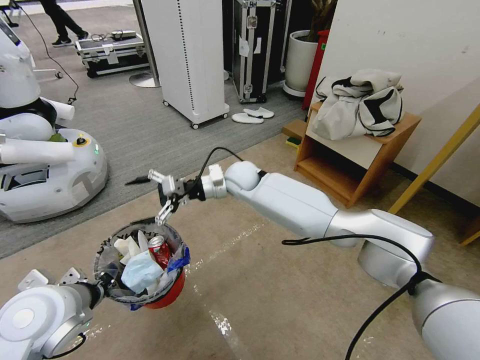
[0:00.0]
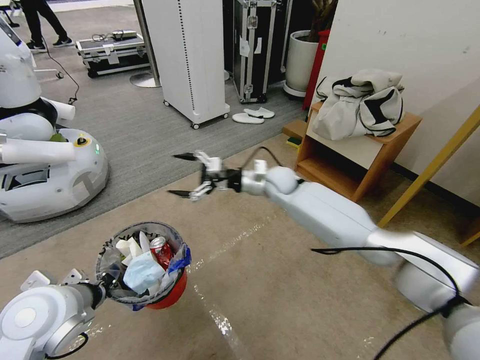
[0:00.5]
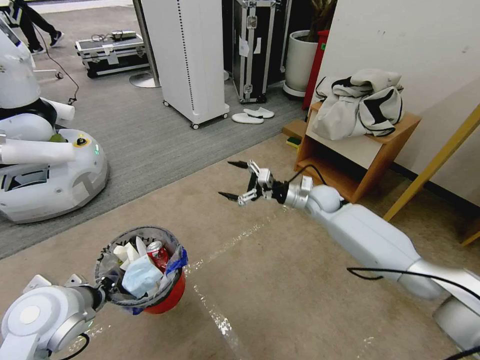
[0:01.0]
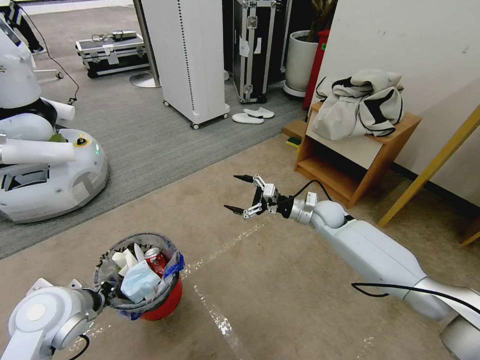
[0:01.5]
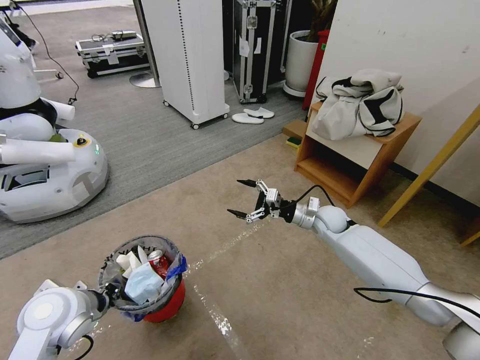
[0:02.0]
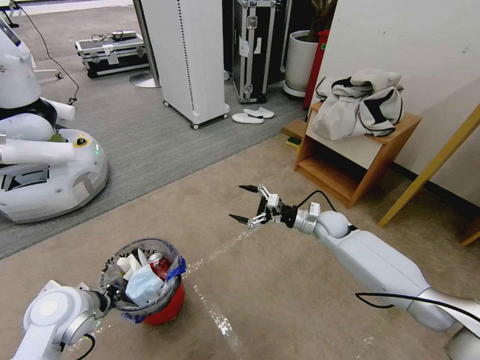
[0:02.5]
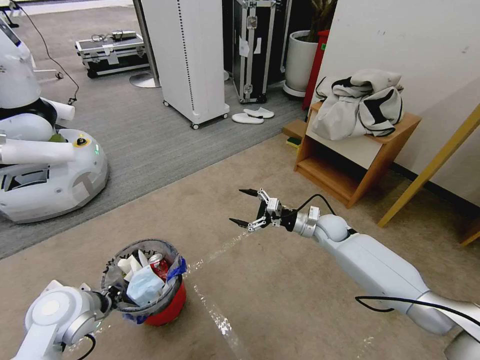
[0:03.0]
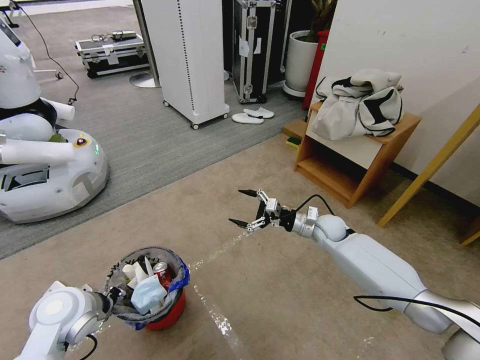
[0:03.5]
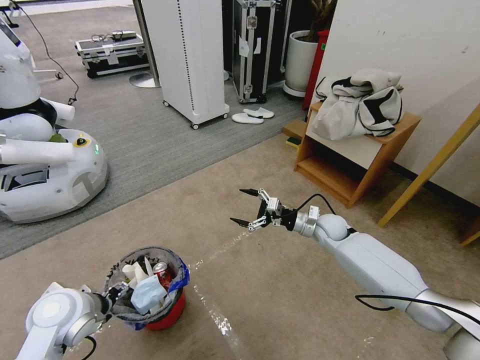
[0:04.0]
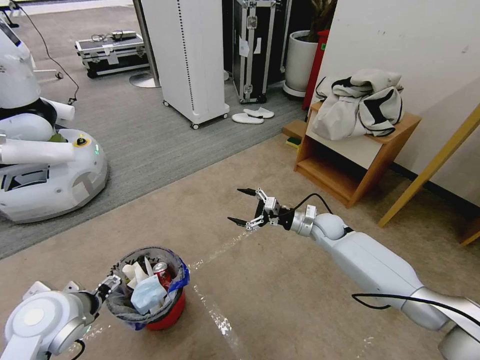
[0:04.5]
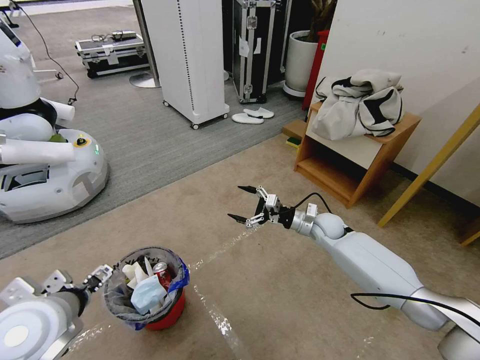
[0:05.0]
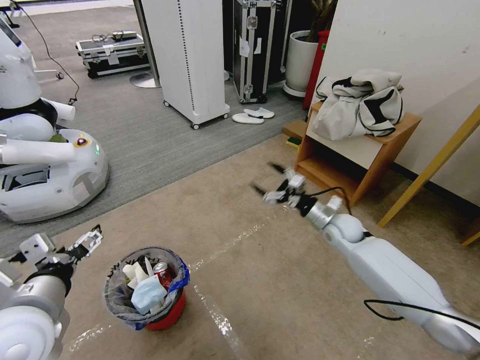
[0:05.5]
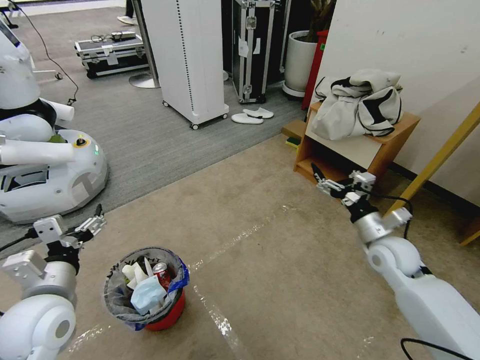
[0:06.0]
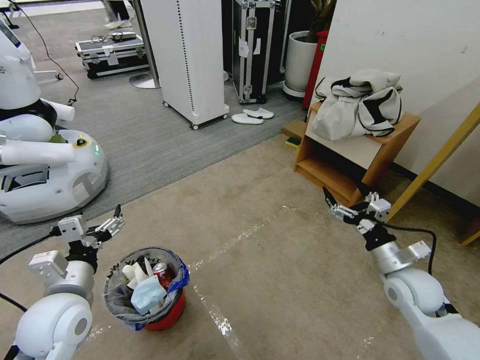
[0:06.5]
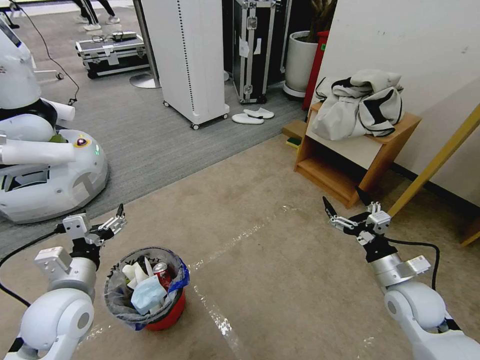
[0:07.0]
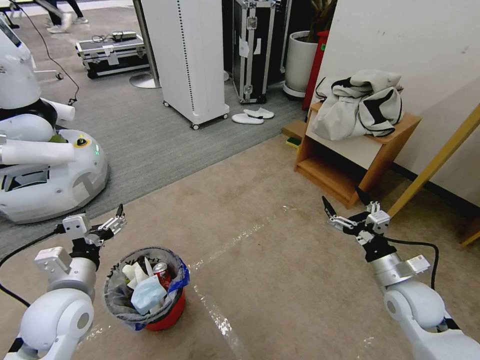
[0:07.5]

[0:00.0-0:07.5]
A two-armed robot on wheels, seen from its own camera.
Task of the whole recording: Pick up the trash bin and place the garbage on the floor into it.
0.0 to 2.0 s: The right gripper heads to the right and downward, covering roughly 30 cm. Meanwhile the left gripper travels downward by roughly 5 cm.
2.0 to 4.0 s: The left gripper opens its fingers.
4.0 to 5.5 s: The left gripper moves upward and backward, roughly 15 cm.
5.5 to 7.5 s: The left gripper moves downward and forward, about 10 cm, while the right gripper heads backward, covering about 20 cm.

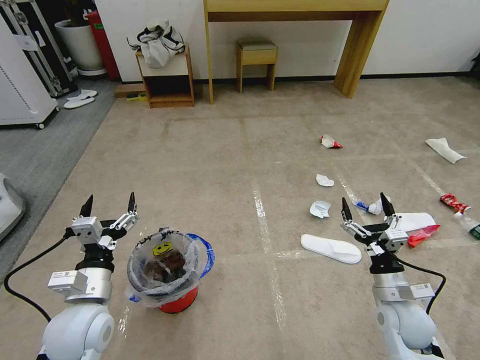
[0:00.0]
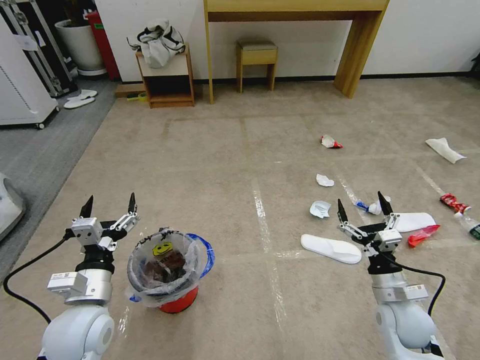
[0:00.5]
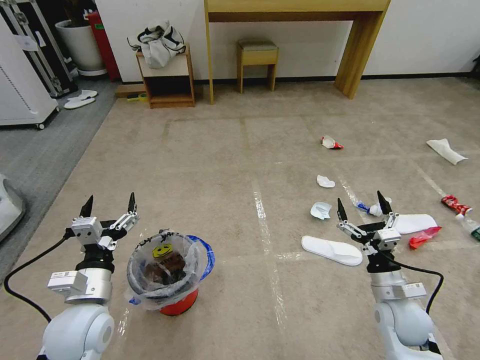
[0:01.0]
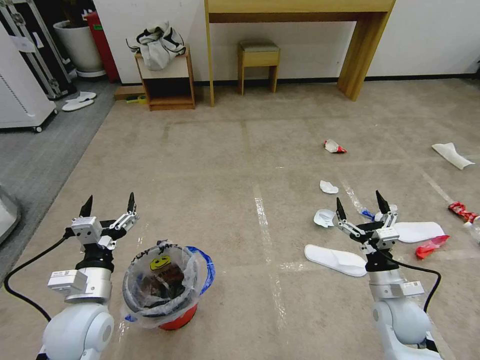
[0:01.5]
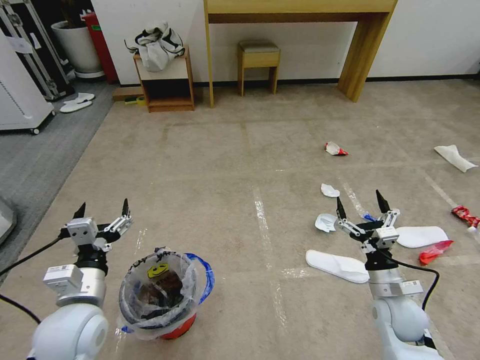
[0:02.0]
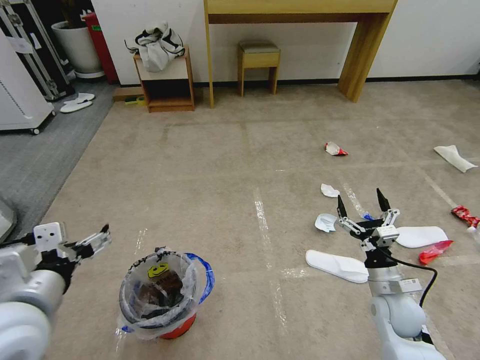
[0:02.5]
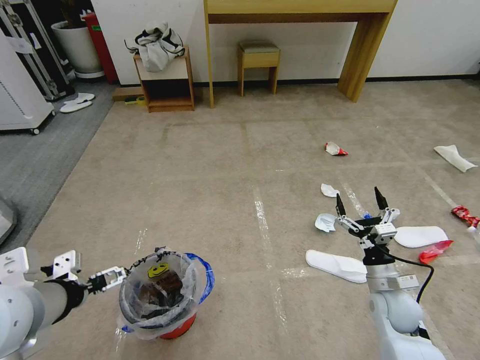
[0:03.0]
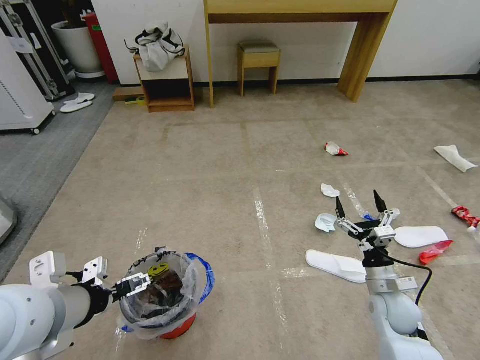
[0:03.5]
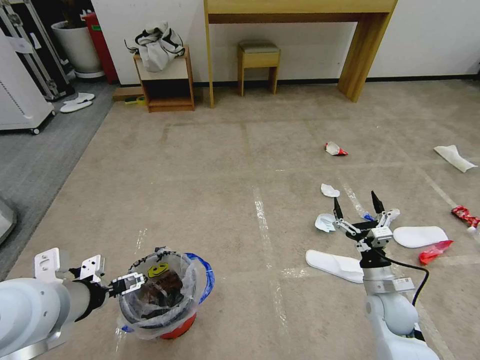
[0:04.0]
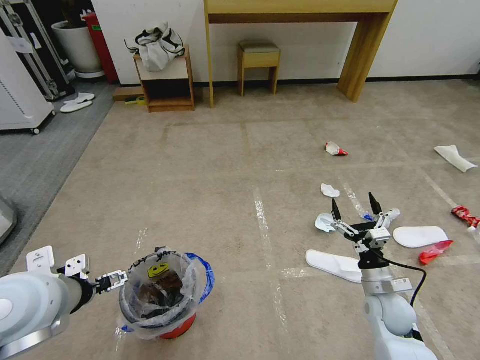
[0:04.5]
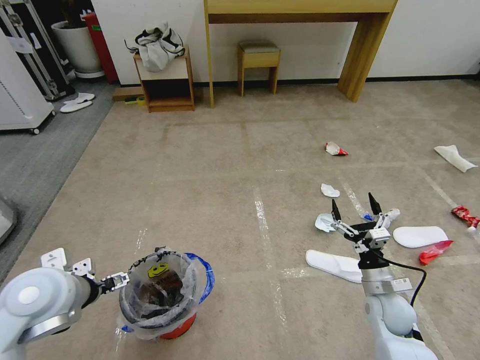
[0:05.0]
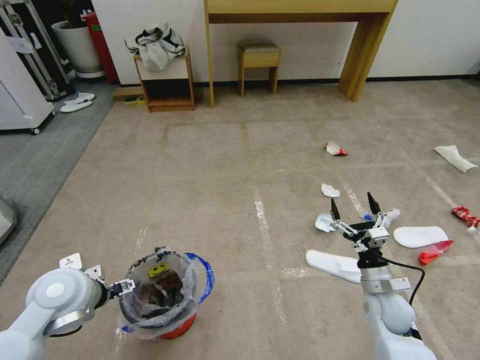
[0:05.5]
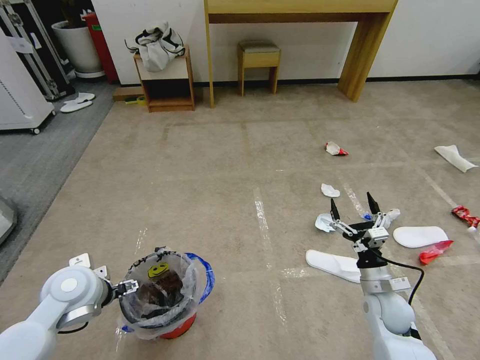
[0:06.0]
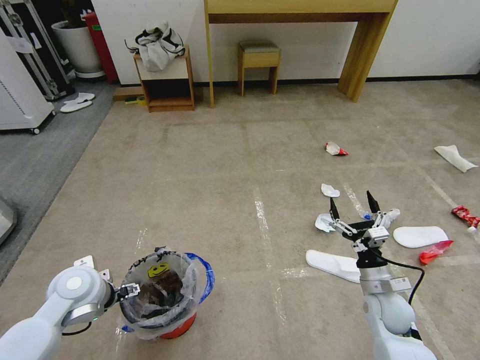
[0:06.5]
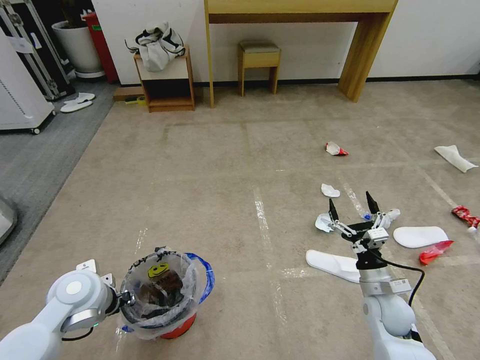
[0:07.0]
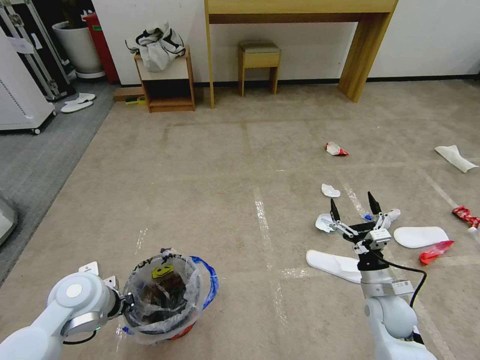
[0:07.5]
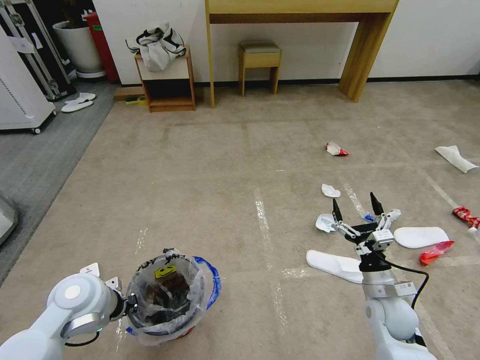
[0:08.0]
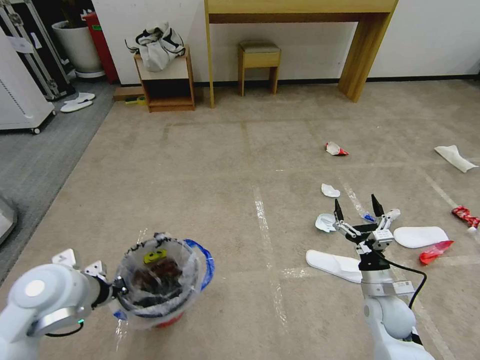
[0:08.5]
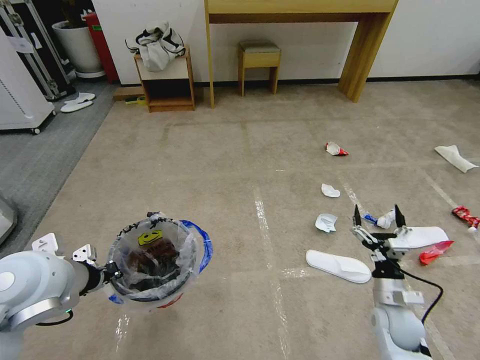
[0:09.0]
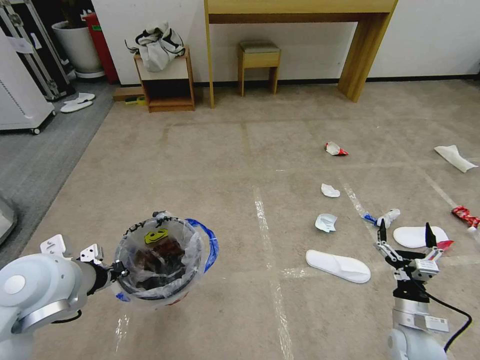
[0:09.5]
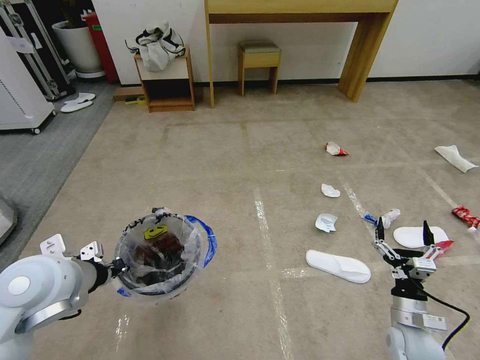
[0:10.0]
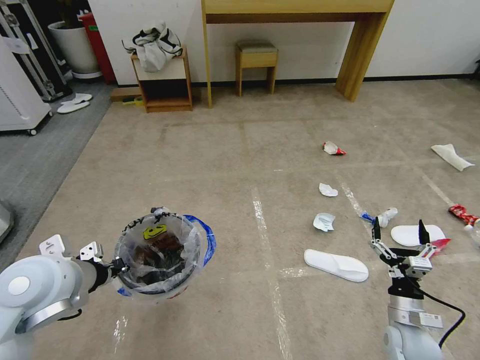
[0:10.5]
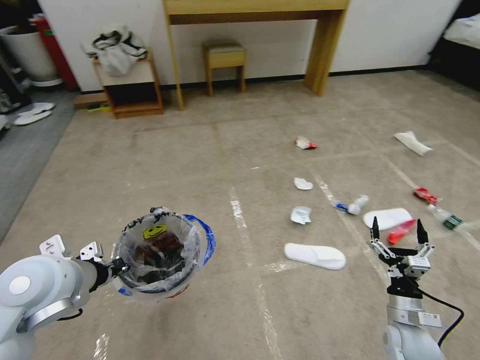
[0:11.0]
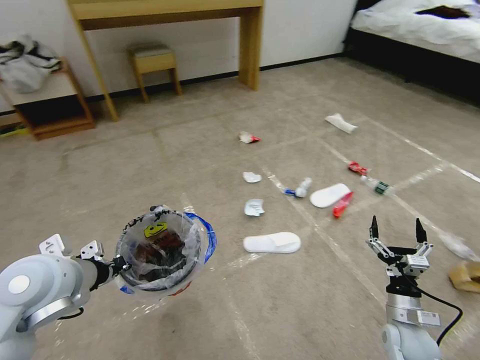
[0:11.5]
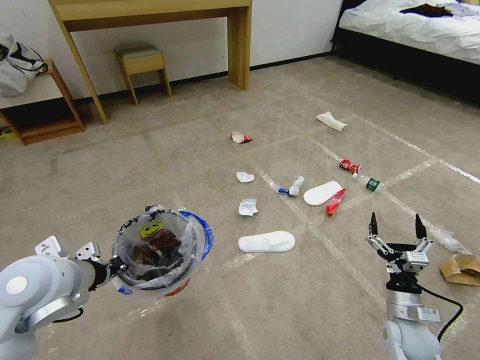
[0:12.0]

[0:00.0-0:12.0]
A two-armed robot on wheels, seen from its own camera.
Task of the whole recording: Pick up the trash bin and place the garbage on the floor into it.
2.0 to 4.0 s: The left gripper is displaced upward by some 10 cm.
4.0 to 6.0 s: The left gripper goes roughly 15 cm downward and forward.
6.0 to 8.0 s: The left gripper closes its fingers.
8.0 to 10.0 s: The right gripper is displaced backward by approximately 5 cm. The left gripper is displaced upward by roughly 10 cm.

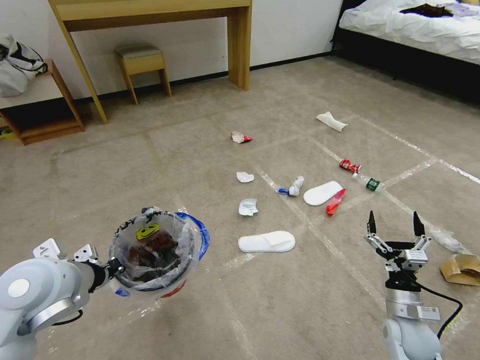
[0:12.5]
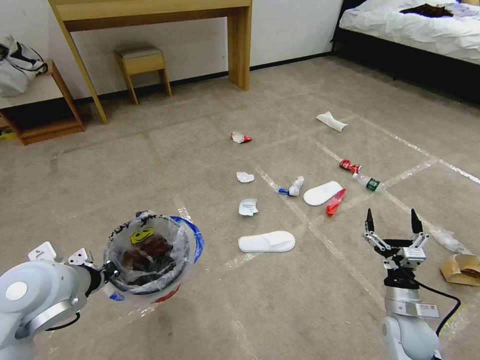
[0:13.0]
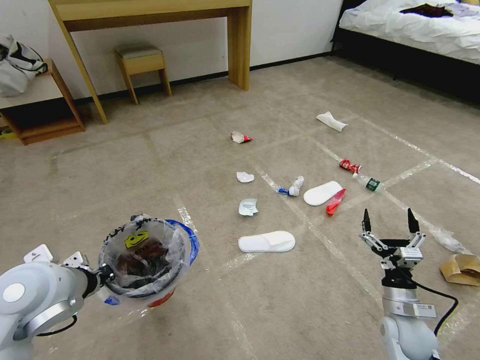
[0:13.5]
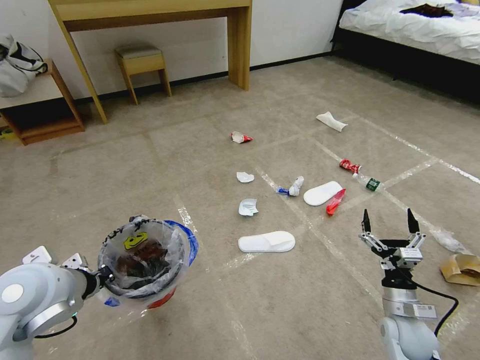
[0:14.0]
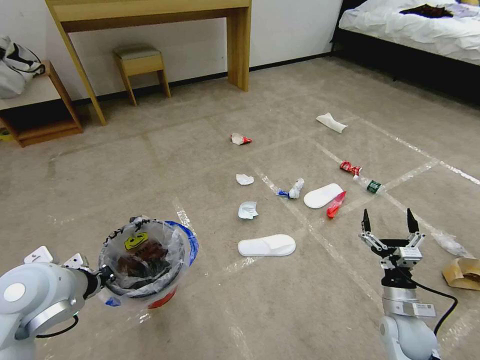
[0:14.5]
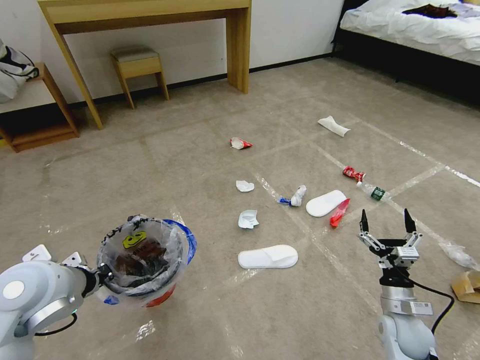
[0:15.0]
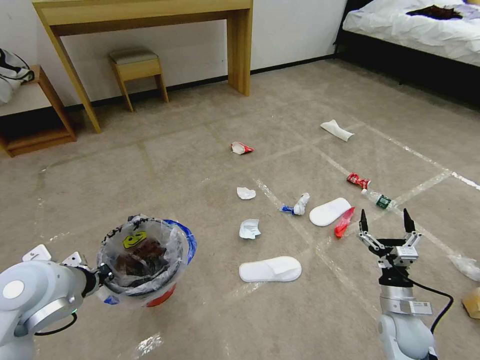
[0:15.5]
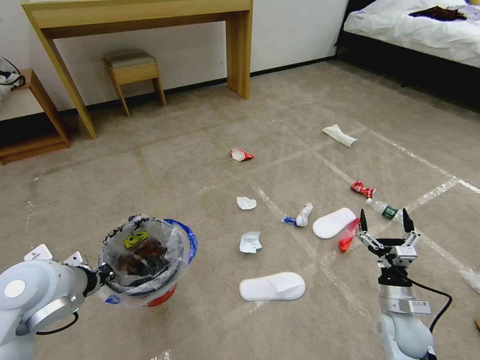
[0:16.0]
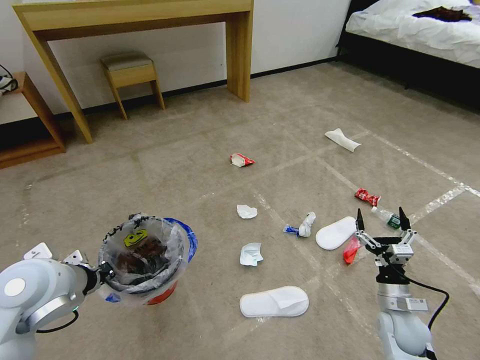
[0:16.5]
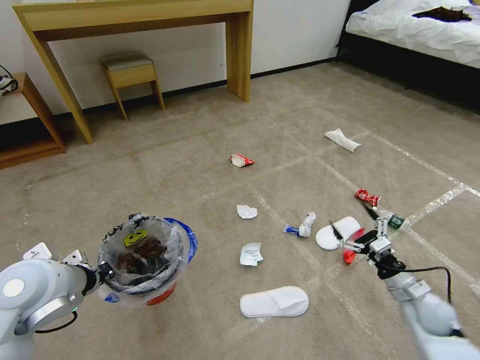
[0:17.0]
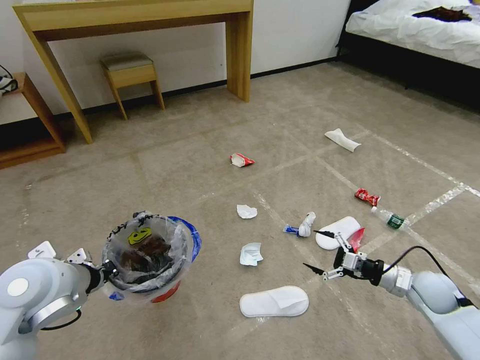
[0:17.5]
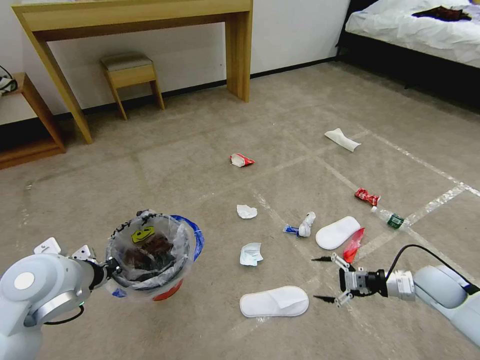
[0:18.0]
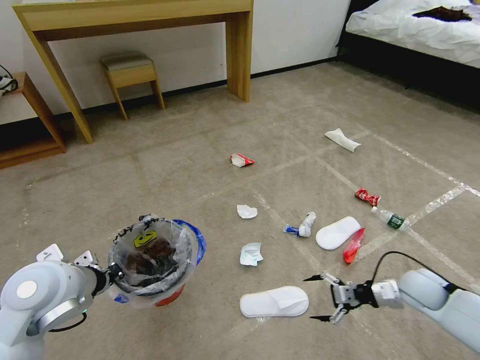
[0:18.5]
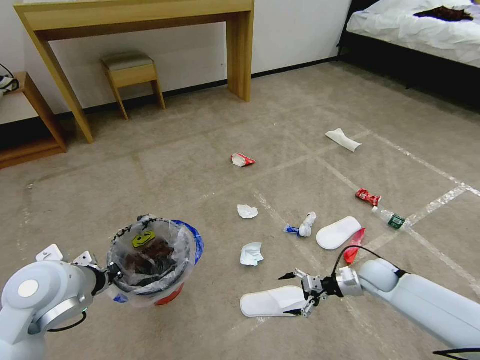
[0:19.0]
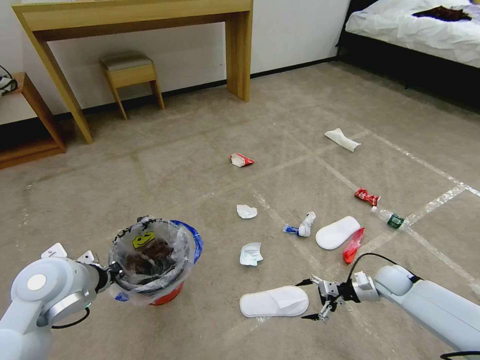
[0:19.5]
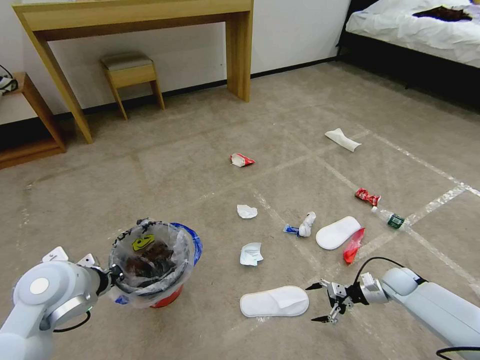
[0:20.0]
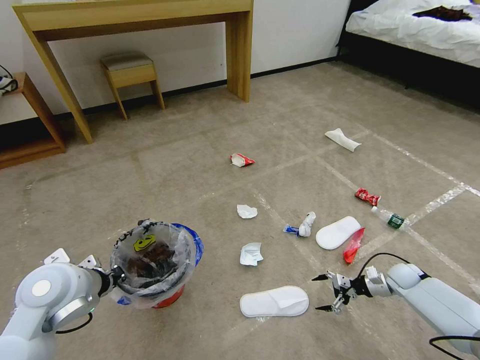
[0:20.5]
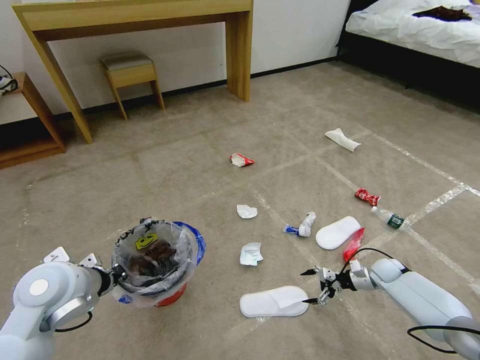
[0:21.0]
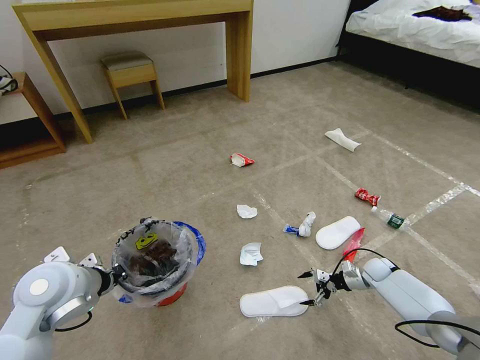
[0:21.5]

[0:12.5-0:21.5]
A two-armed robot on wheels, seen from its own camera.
Task of the whole recording: Pick up the trash bin and place the garbage on the floor into it.
12.5 to 14.5 s: The grippers stay close to where they were, moving slightly.
14.5 to 17.0 s: The right gripper is displaced to the right by about 5 cm.
17.0 to 19.5 s: The right gripper shifts approximately 10 cm forward and downward.
19.5 to 21.5 s: The right gripper travels forward and downward by roughly 10 cm.
